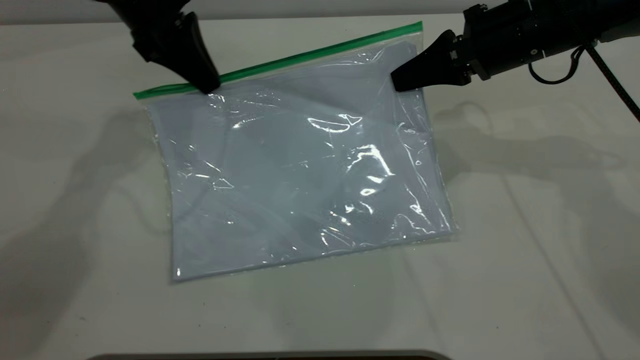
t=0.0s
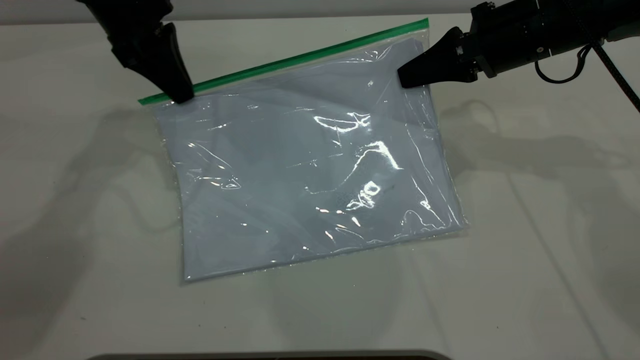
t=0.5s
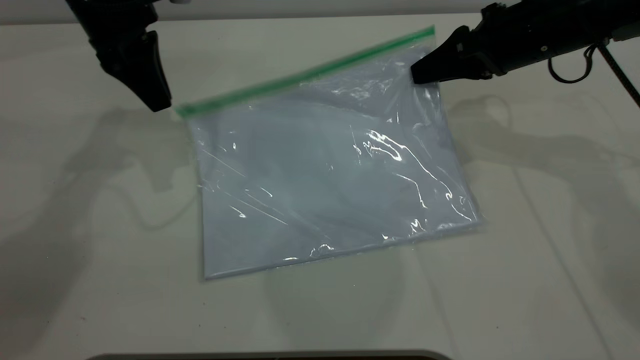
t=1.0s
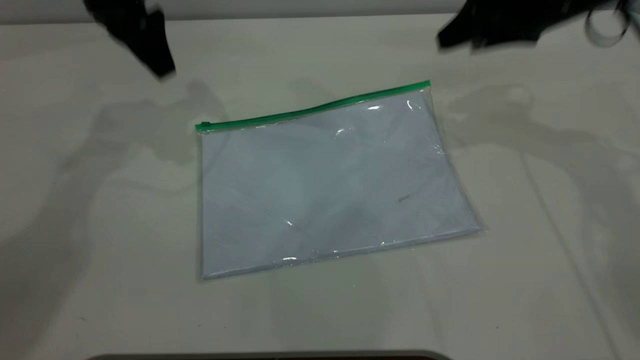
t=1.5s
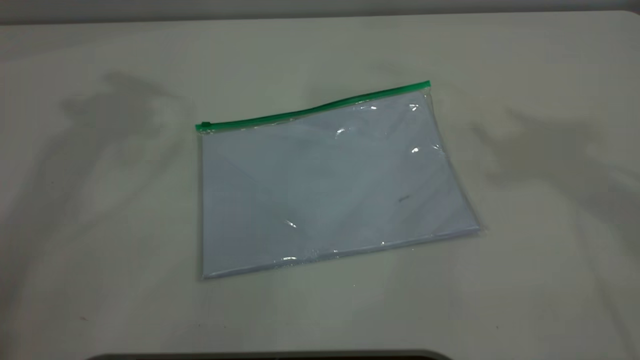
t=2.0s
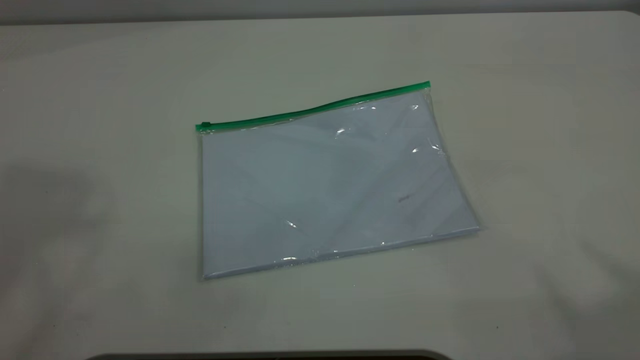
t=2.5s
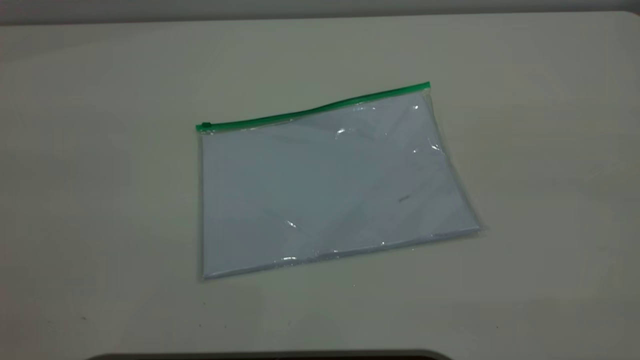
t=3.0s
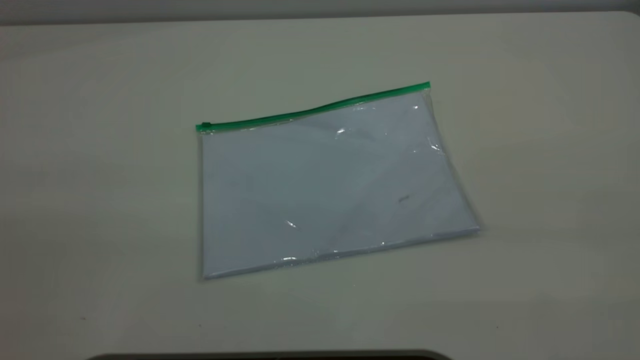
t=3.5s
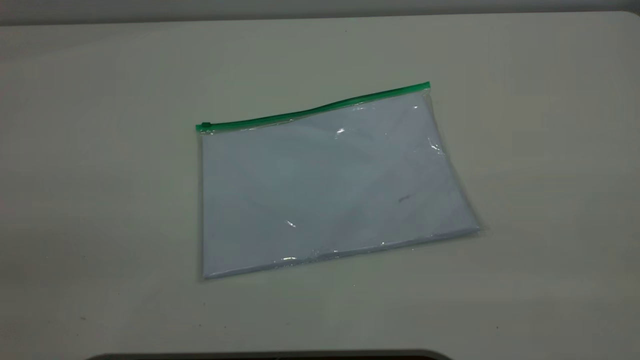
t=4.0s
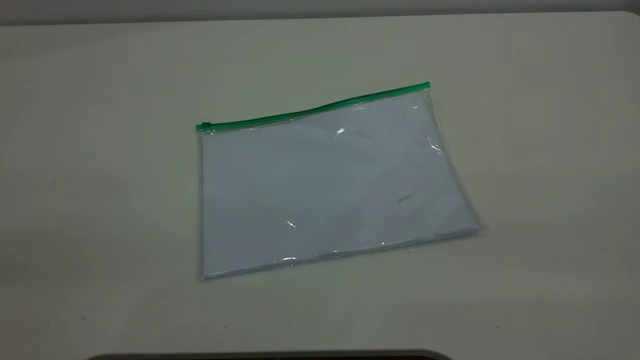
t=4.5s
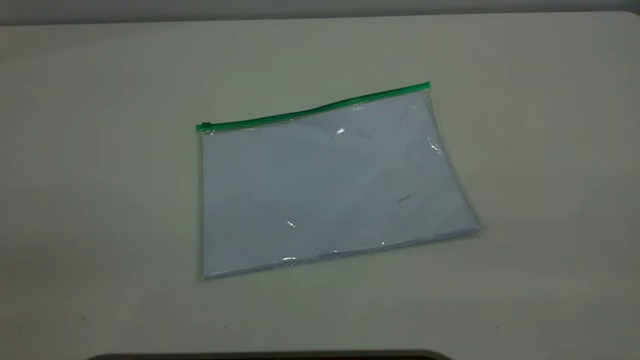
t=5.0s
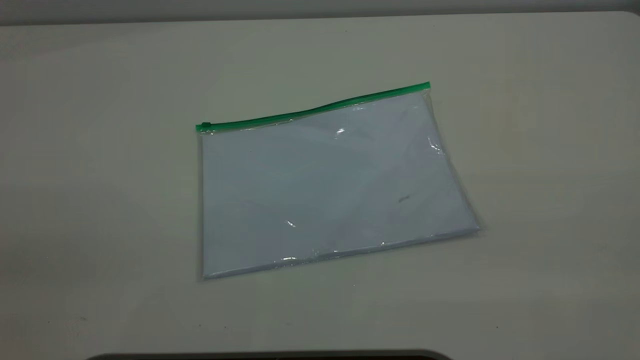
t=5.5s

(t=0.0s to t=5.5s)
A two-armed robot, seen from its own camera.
t=0.0s - t=2.0s: Both grippers travel together upward, approximately 35 cm. The right gripper opens, while the left gripper opens.
